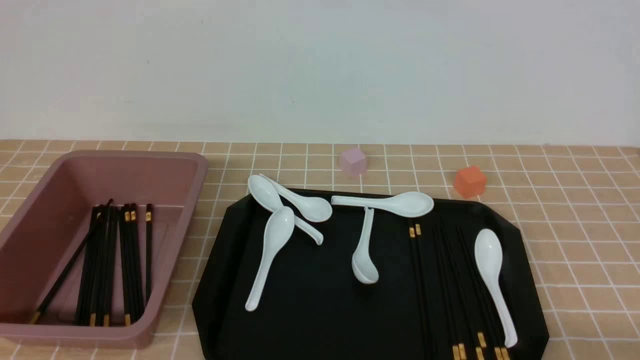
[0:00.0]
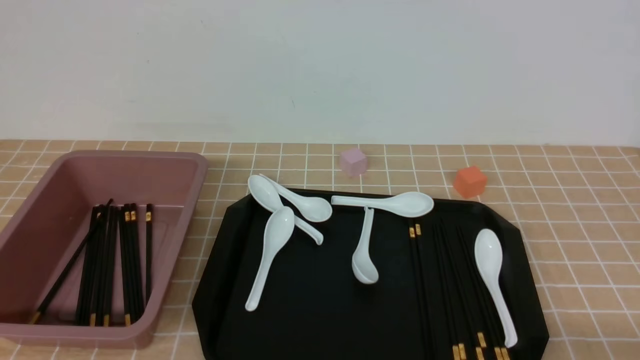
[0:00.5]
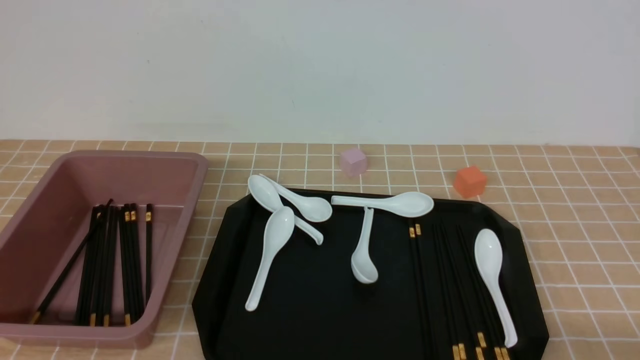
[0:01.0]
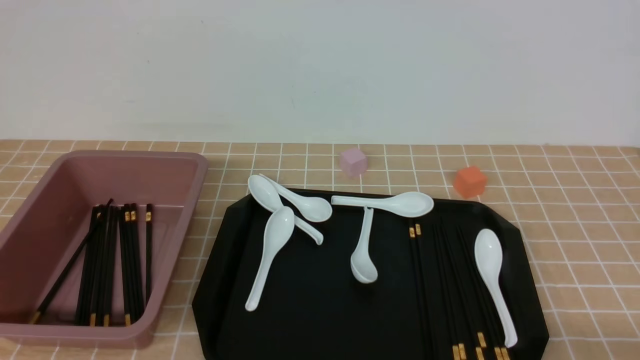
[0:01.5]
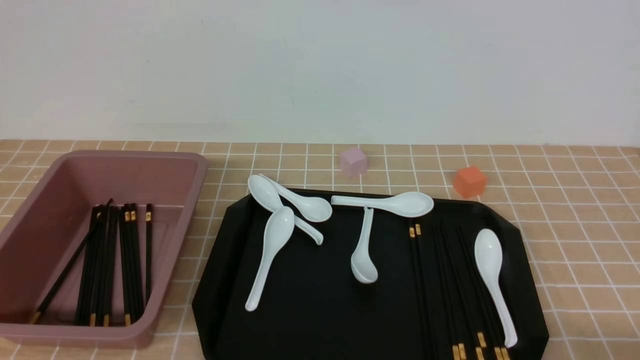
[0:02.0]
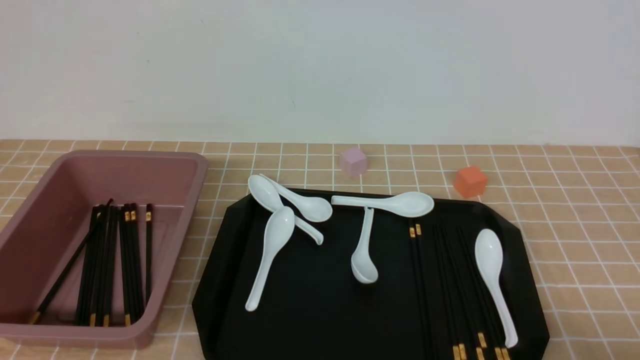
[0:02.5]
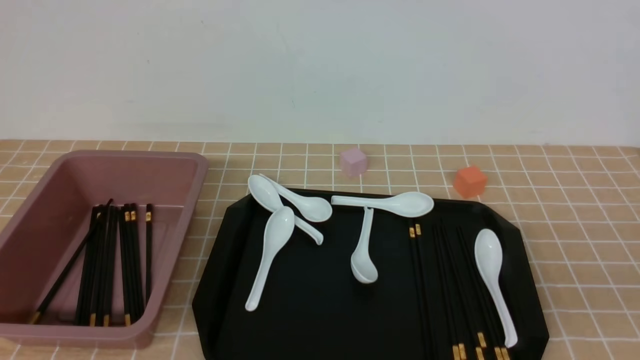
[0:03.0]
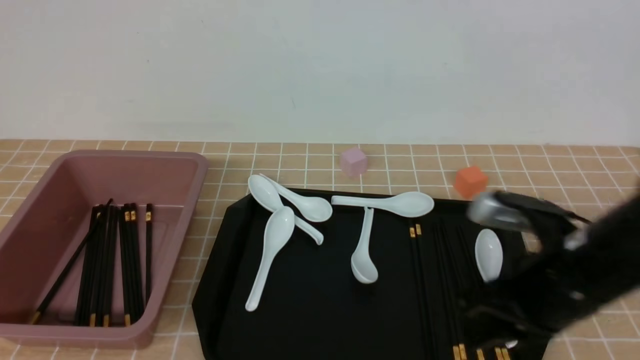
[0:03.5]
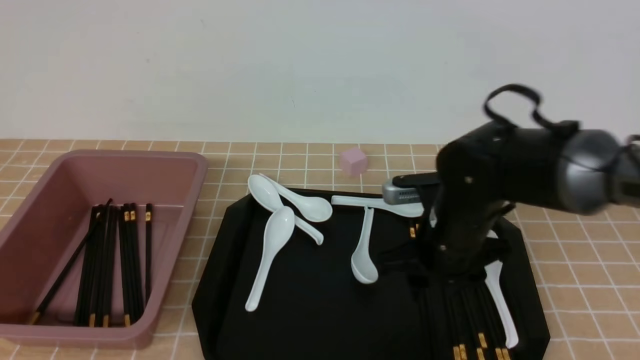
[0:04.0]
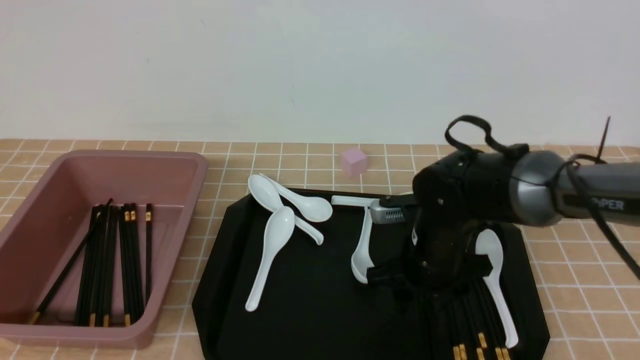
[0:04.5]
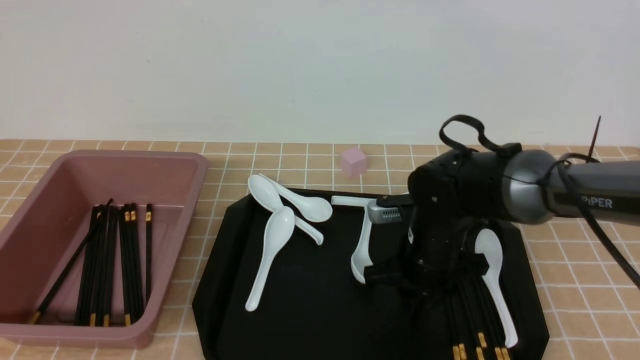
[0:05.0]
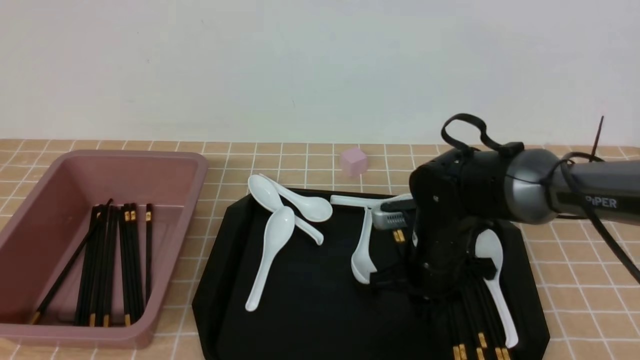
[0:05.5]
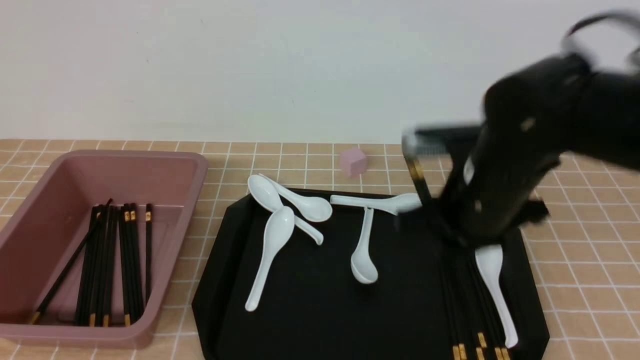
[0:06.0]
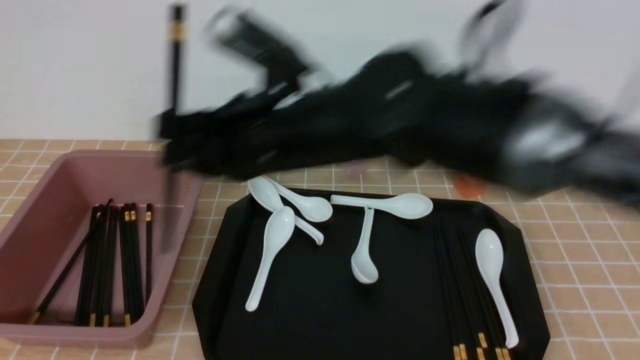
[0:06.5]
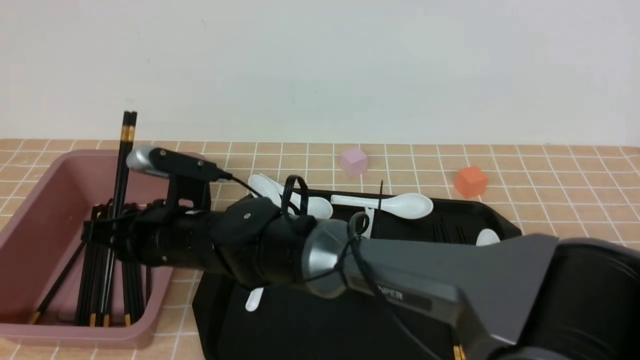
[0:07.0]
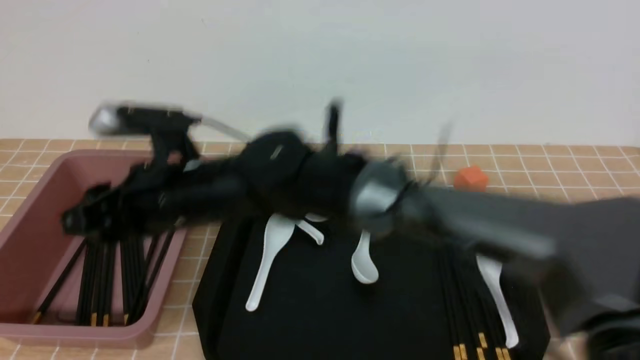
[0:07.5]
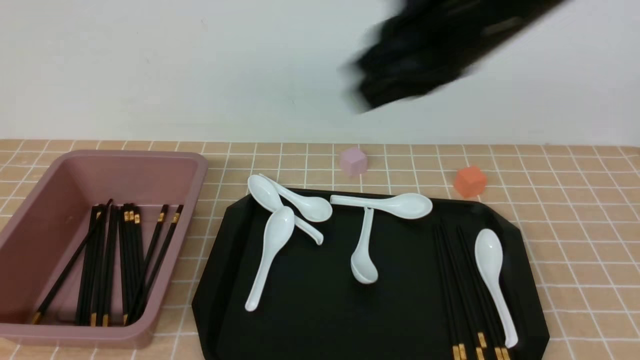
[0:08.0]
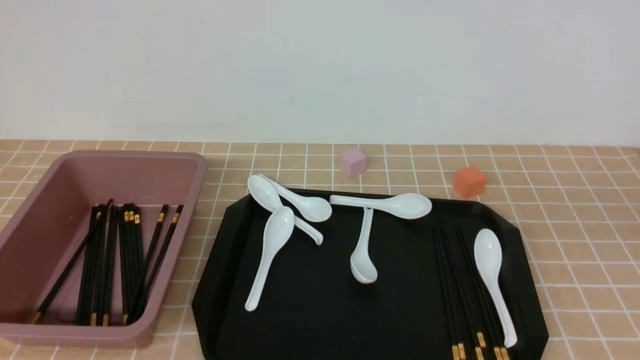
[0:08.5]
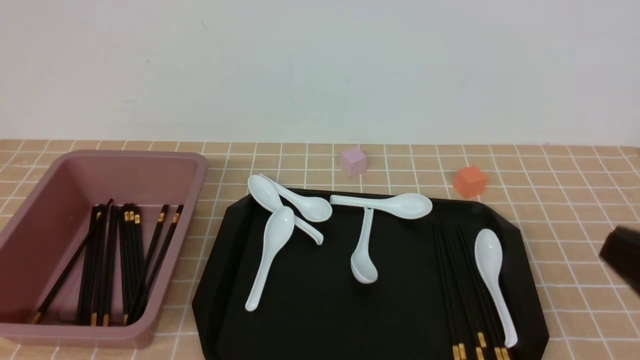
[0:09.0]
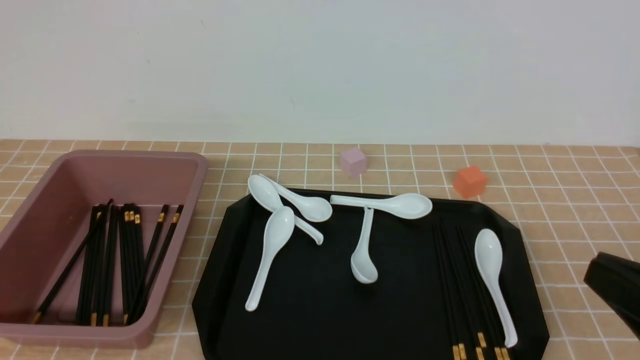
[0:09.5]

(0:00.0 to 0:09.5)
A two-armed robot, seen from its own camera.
Step, 0:00.0 - 0:05.5: use the right arm to grab a pair of chopsticks.
Step, 0:06.0 - 0:07.5: use the right arm to put the chopsticks into the lunch box.
0:02.0 - 0:04.0: The right gripper travels forward and to the left by about 30 cm, and closes, then reopens.
0:04.0 - 0:05.5: The right gripper closes up.
0:05.5 - 0:07.5: The right gripper shifts some 25 cm to the left and upward, and opens.
0:07.5 - 0:09.5: The right gripper shifts roughly 40 cm to the right and backward, and closes.

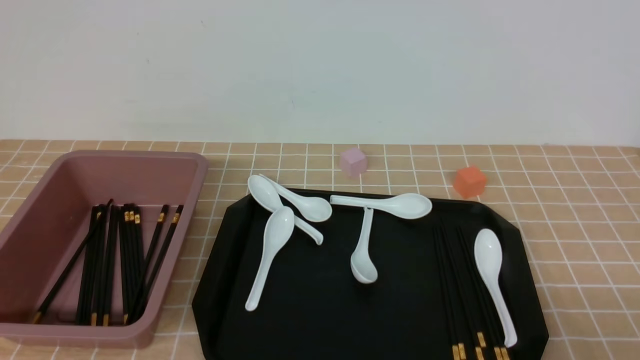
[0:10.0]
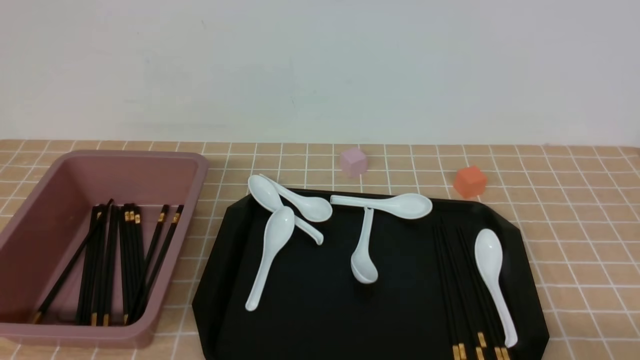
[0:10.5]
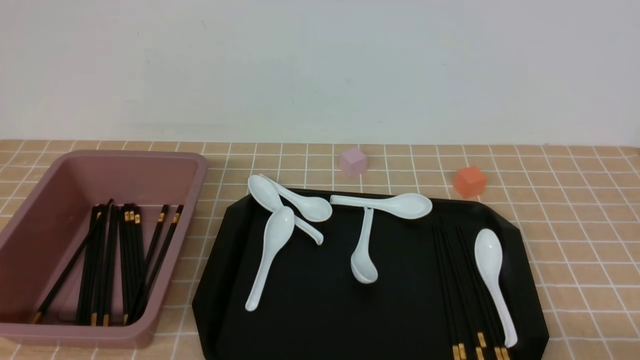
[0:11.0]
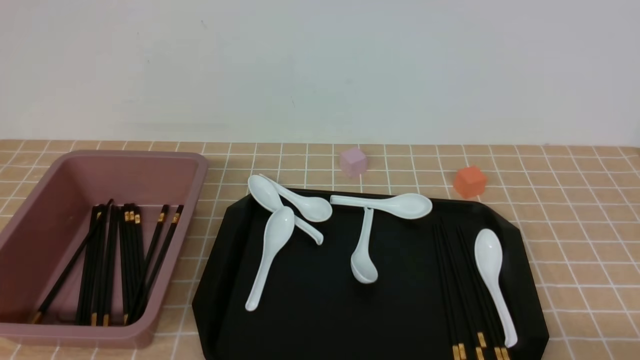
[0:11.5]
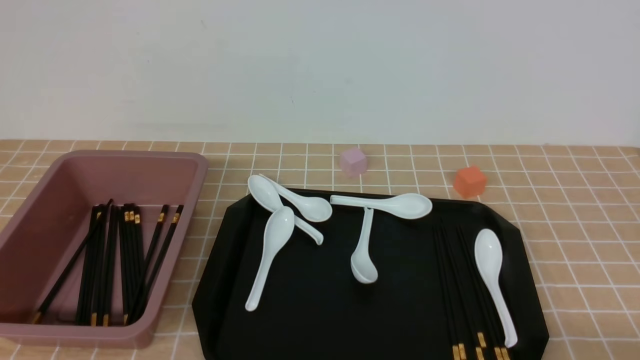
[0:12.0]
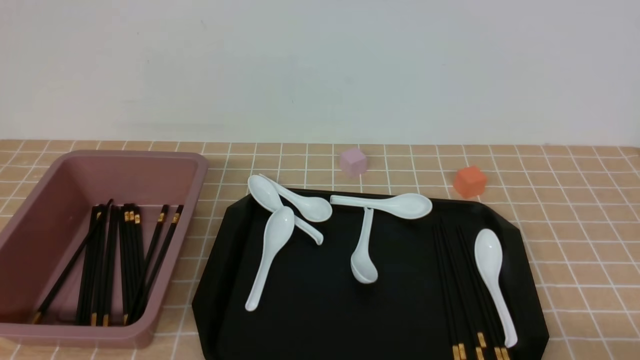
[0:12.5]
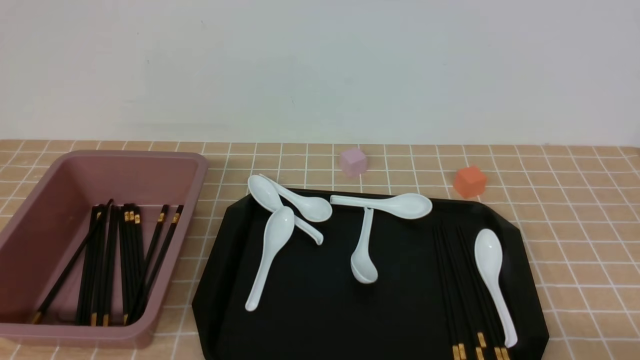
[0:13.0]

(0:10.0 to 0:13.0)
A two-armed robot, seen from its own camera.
0:11.5 - 0:13.0: The two grippers keep their place.

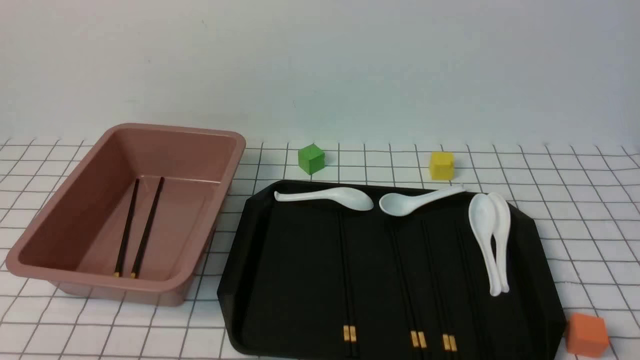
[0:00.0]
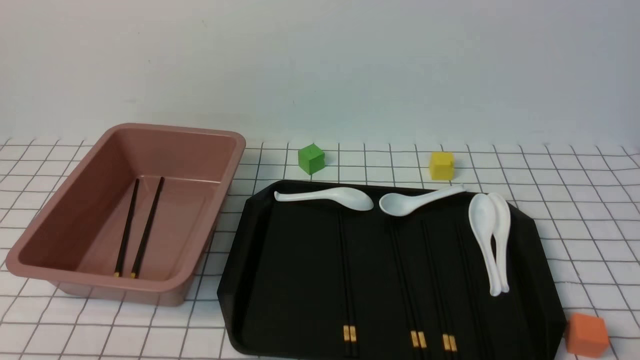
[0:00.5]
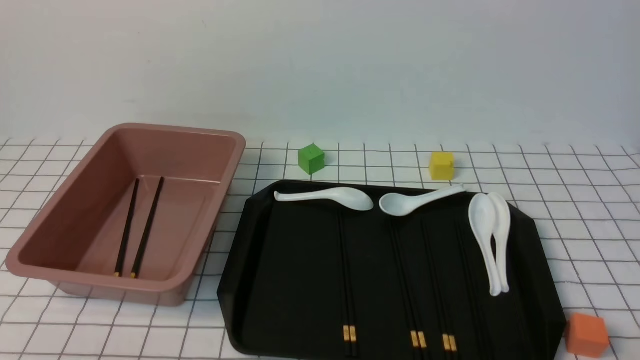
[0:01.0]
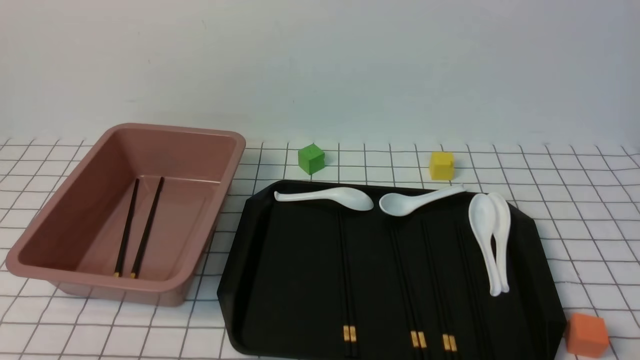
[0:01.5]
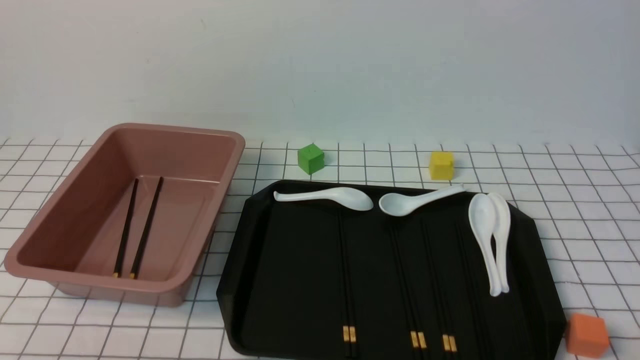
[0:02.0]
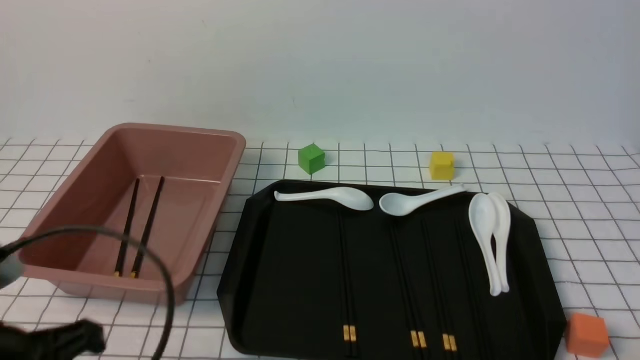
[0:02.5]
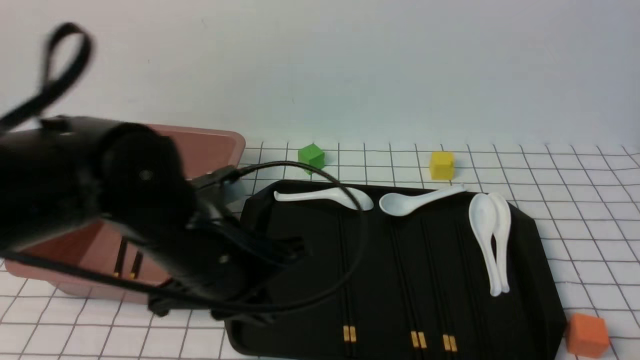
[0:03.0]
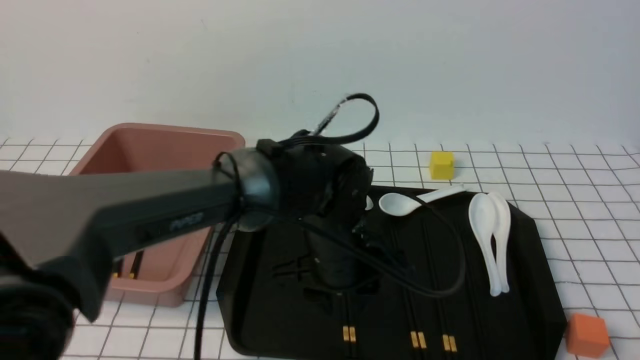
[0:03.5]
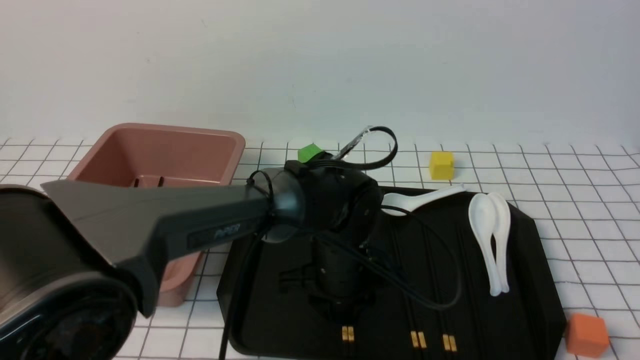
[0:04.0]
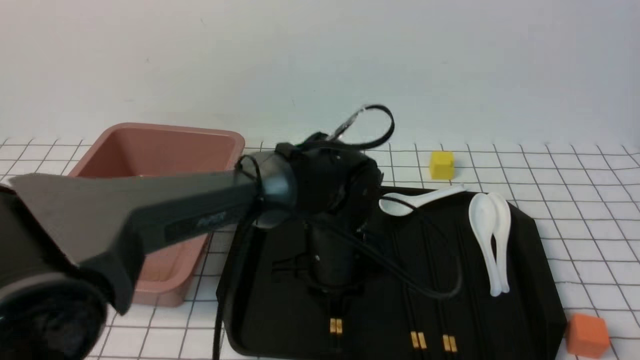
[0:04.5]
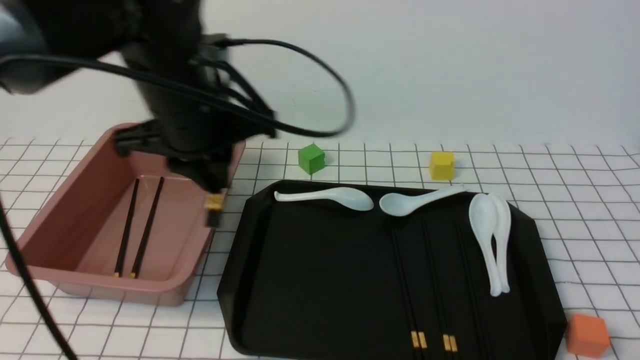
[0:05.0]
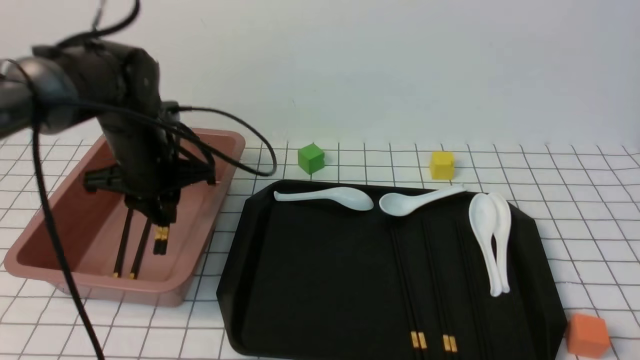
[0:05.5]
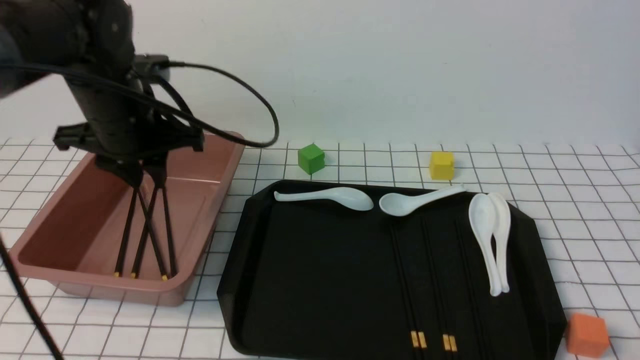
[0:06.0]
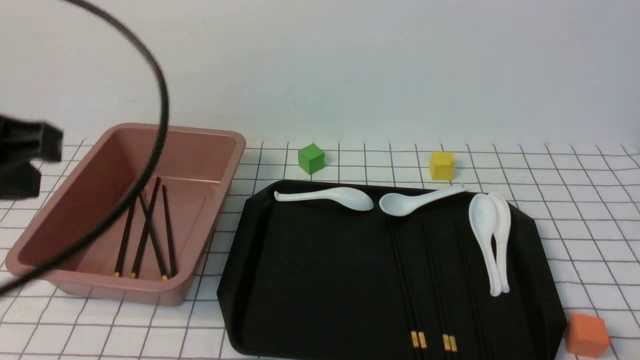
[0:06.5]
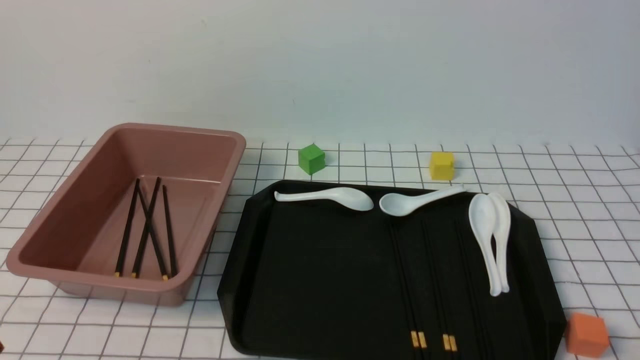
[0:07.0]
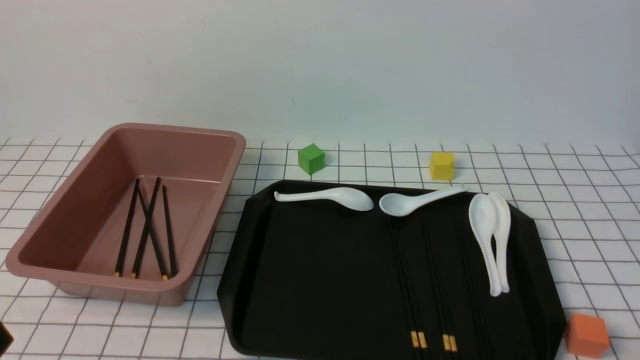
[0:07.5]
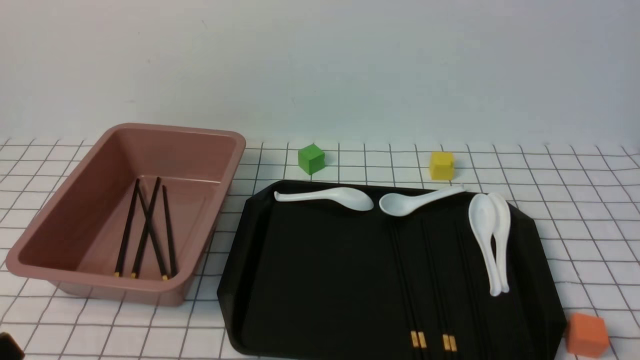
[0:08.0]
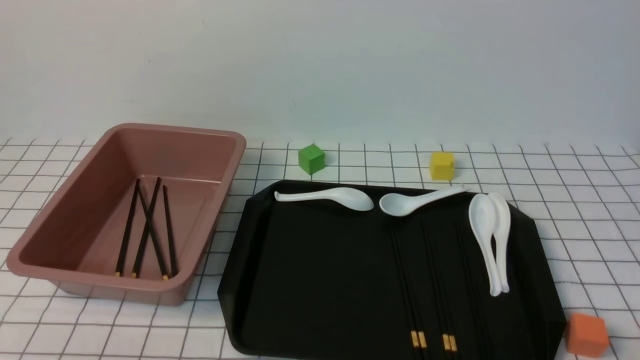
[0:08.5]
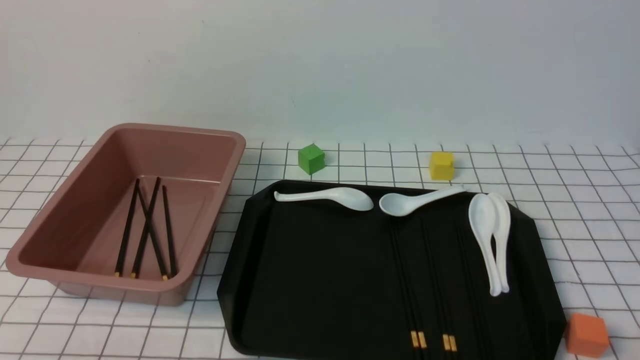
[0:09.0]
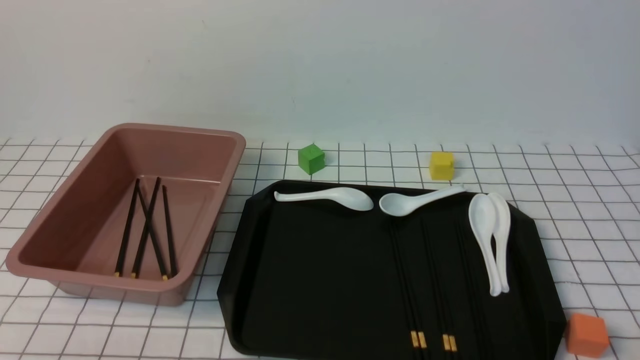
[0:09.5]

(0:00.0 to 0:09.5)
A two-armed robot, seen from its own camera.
Step, 0:00.0 - 0:04.5: use the left arm to grab a pair of chopsticks.
Step, 0:05.0 - 0:06.0: use the left arm to put the chopsticks into the lunch box.
0:02.0 - 0:04.0: The left gripper goes about 40 cm forward and to the right, and opens.
0:04.0 - 0:05.5: The left gripper heads to the left, covering approximately 20 cm.
0:05.5 - 0:07.5: The left gripper heads backward, covering roughly 35 cm, and closes its fingers.
